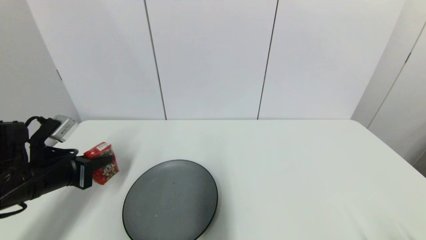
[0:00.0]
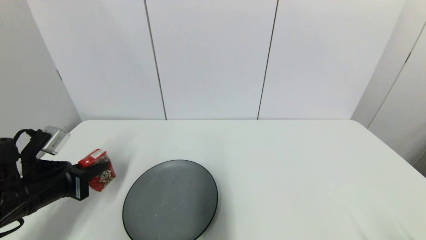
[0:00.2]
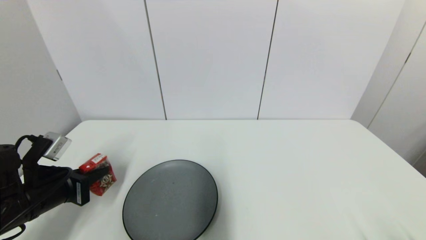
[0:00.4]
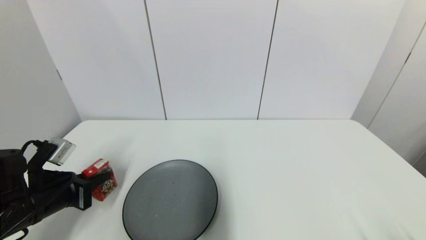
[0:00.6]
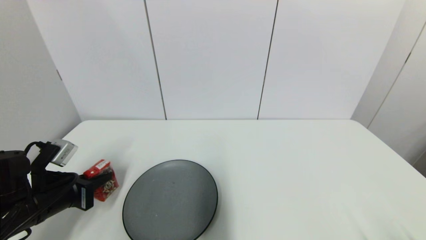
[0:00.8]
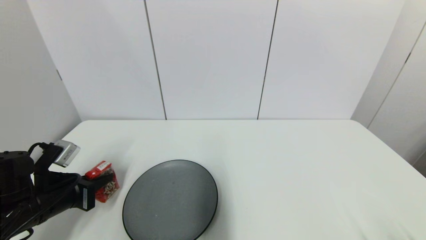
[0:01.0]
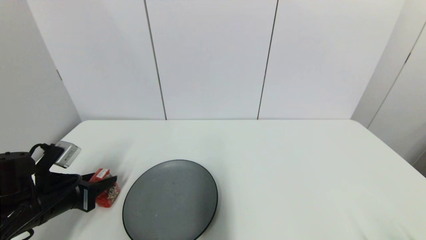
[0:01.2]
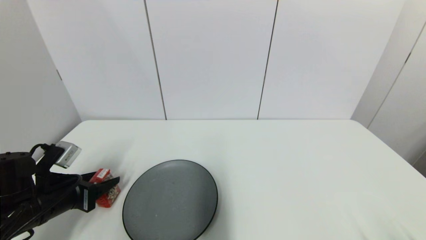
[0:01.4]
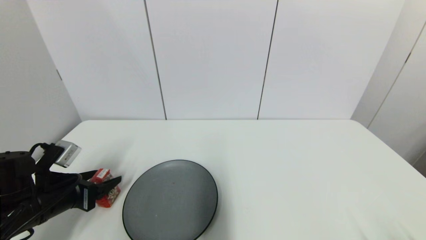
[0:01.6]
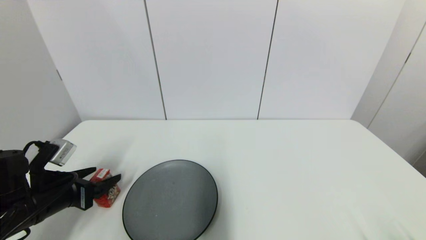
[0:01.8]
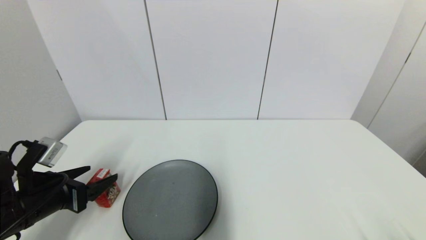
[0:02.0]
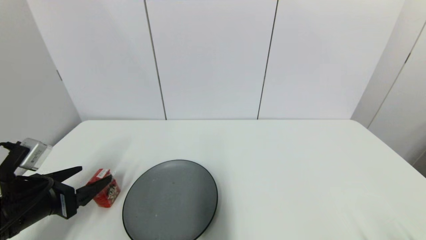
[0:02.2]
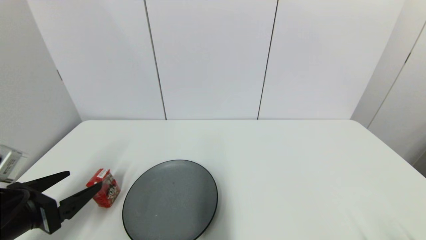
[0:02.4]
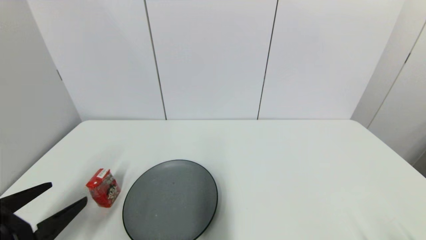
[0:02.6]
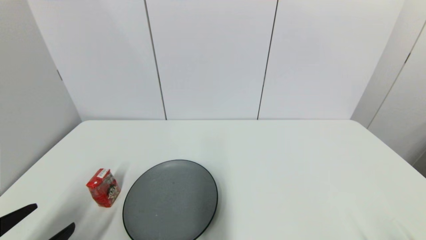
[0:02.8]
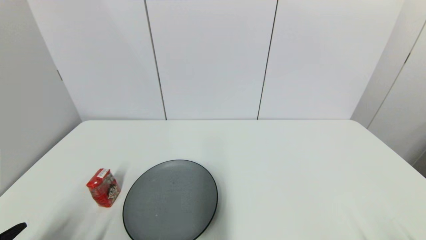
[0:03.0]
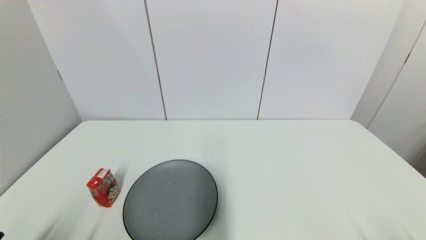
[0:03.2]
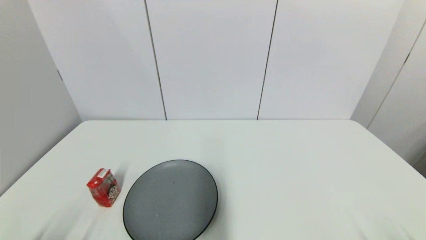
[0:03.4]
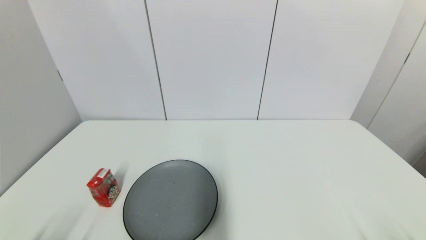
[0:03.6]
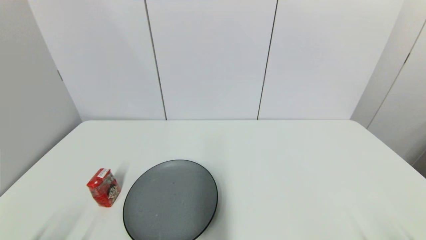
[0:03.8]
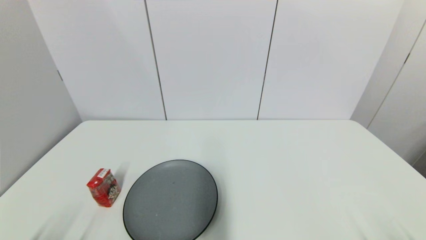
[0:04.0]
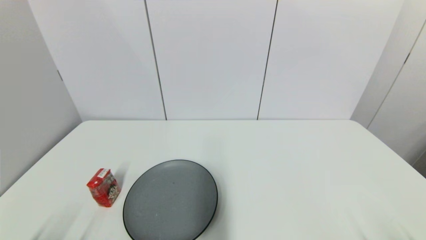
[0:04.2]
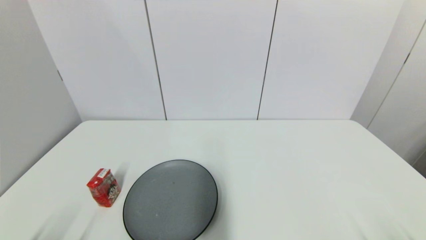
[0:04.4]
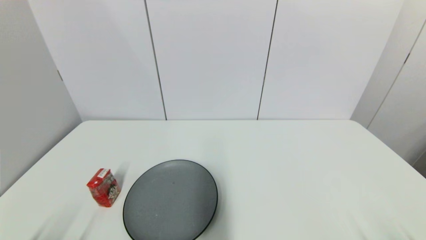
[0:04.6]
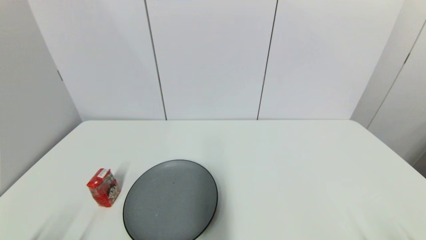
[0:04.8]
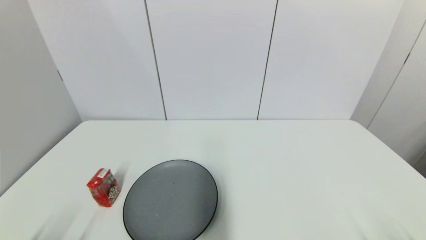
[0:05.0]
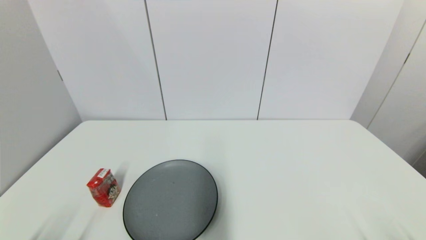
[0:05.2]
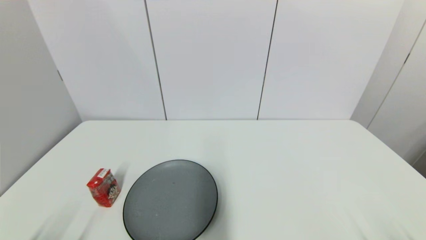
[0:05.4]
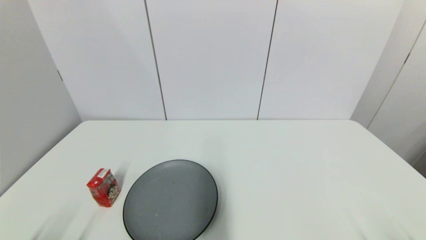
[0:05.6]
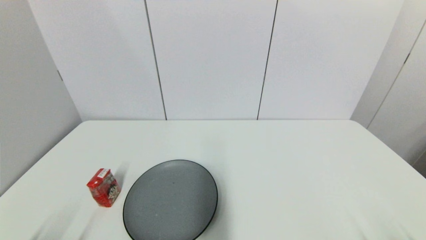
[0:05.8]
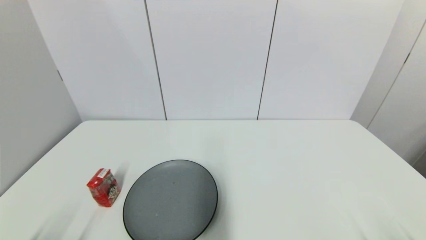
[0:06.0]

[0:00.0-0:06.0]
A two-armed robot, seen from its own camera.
0:00.0 to 0:01.6: The left gripper opens up.
0:01.6 to 0:03.0: The left gripper heads backward, covering roughly 15 cm.
0:03.0 to 0:04.4: The grippers move only a little.
0:04.4 to 0:06.0: The two grippers keep their place.
